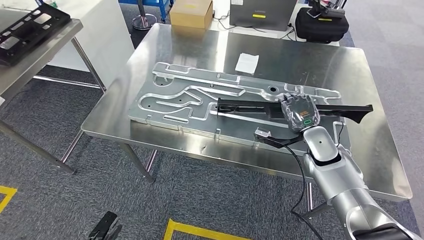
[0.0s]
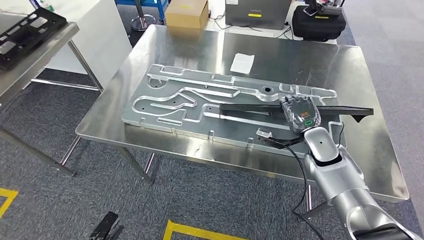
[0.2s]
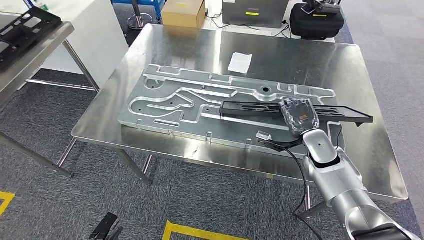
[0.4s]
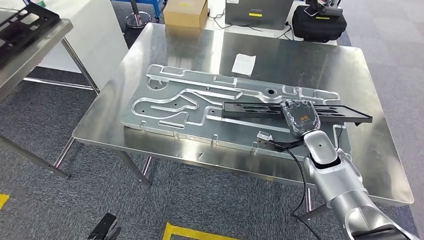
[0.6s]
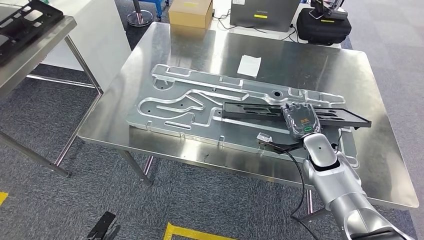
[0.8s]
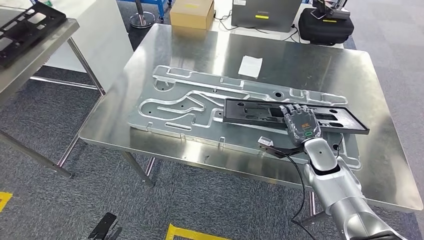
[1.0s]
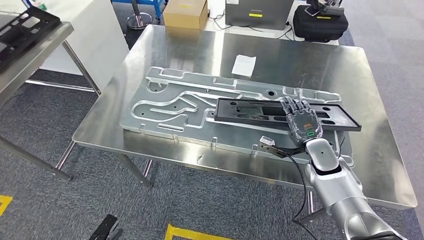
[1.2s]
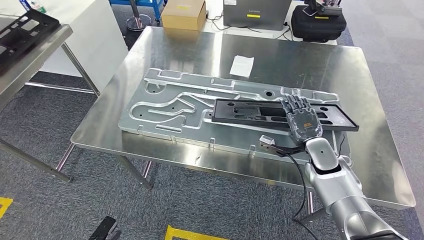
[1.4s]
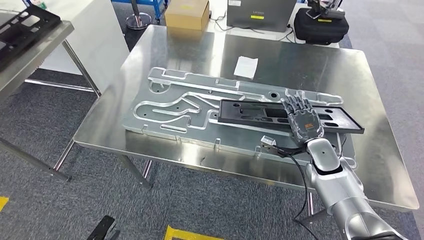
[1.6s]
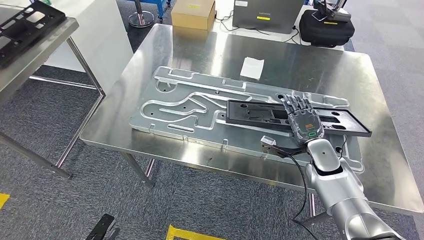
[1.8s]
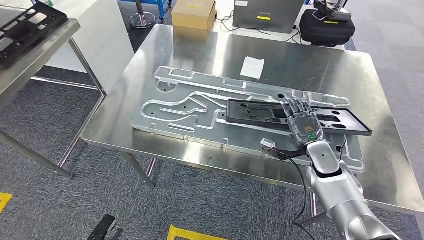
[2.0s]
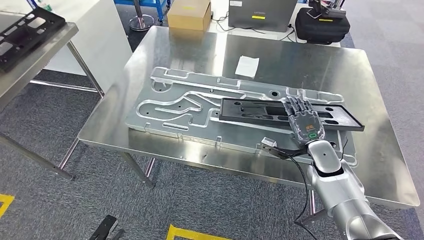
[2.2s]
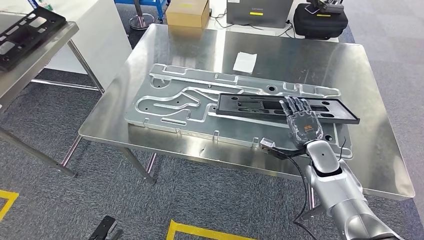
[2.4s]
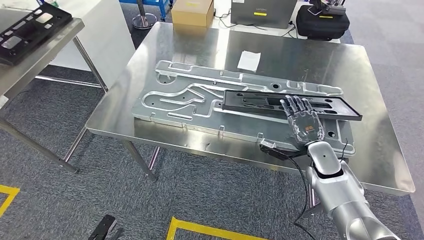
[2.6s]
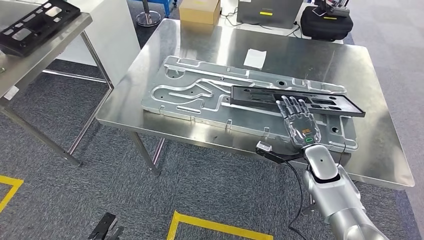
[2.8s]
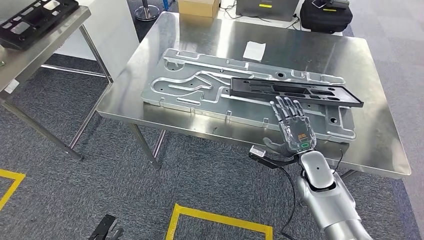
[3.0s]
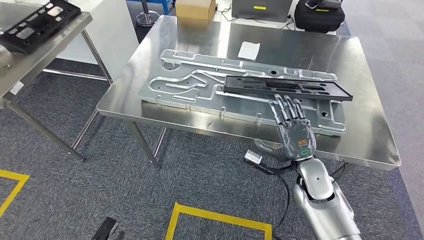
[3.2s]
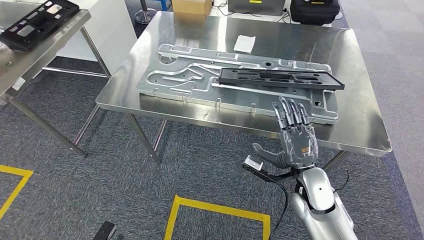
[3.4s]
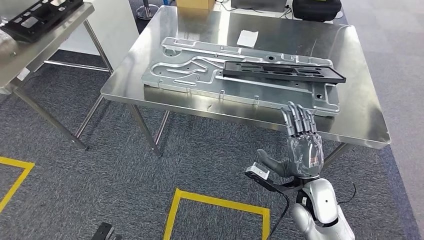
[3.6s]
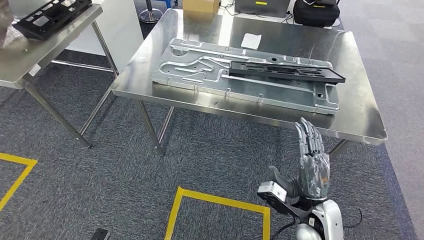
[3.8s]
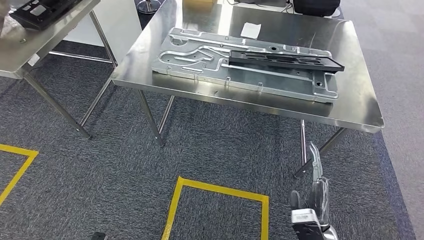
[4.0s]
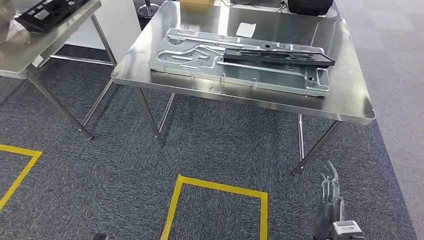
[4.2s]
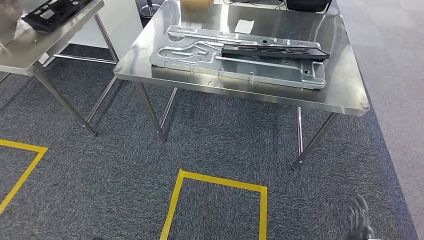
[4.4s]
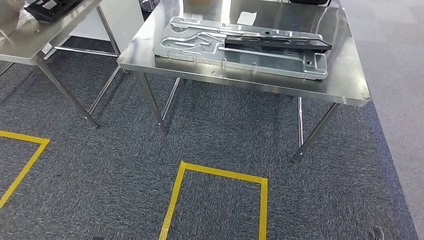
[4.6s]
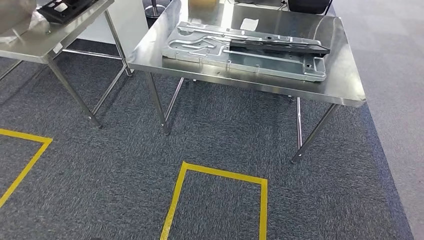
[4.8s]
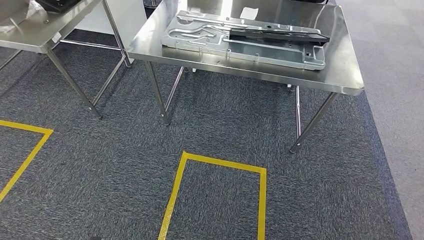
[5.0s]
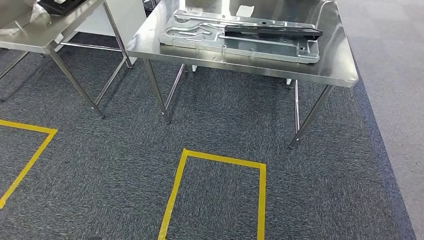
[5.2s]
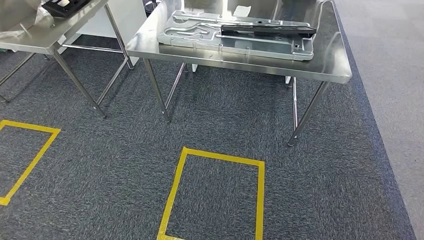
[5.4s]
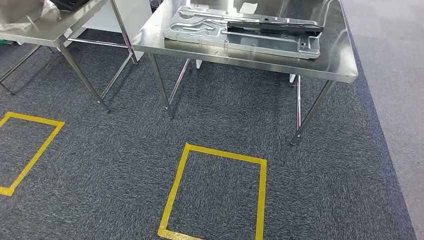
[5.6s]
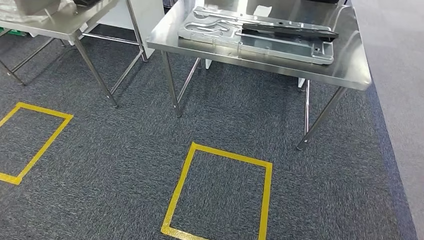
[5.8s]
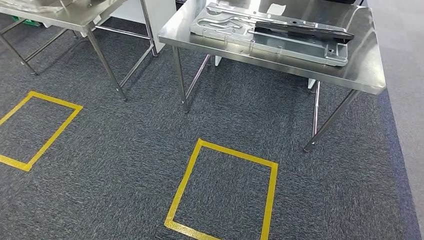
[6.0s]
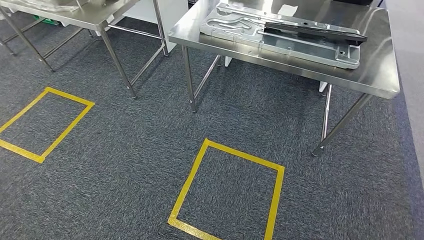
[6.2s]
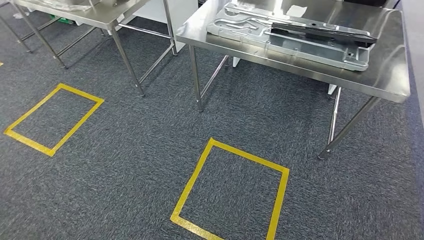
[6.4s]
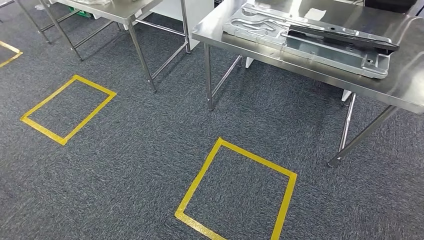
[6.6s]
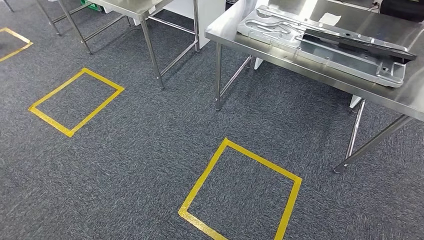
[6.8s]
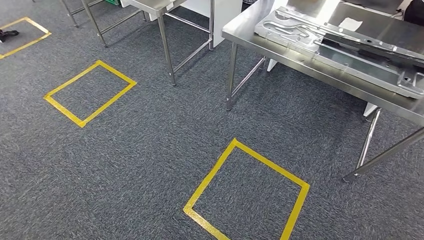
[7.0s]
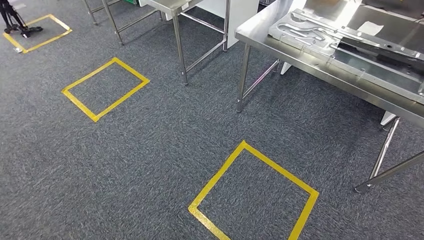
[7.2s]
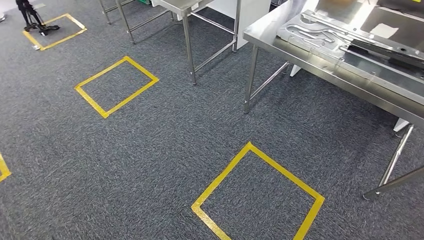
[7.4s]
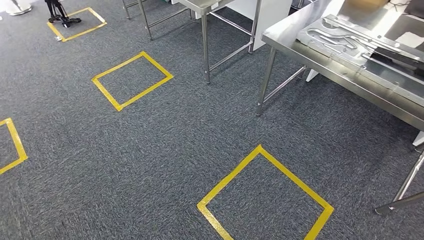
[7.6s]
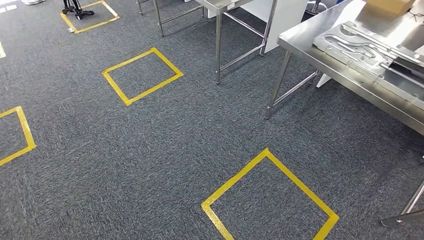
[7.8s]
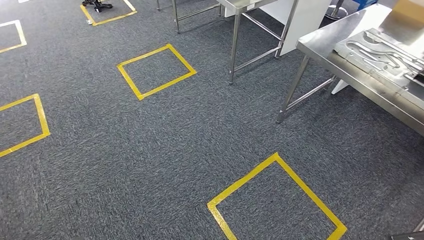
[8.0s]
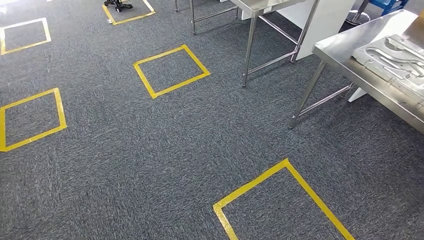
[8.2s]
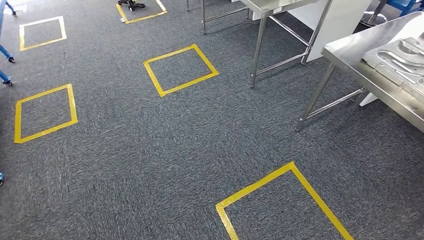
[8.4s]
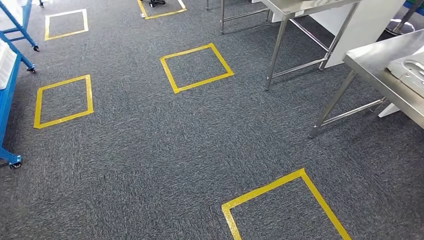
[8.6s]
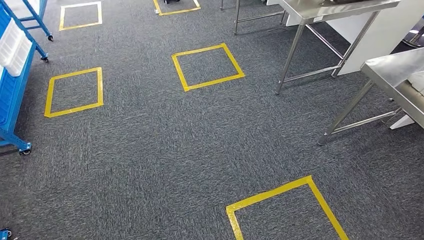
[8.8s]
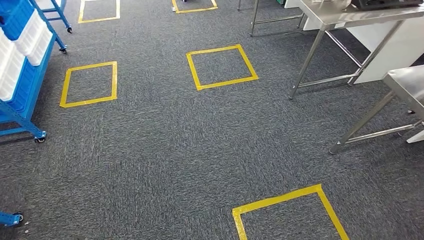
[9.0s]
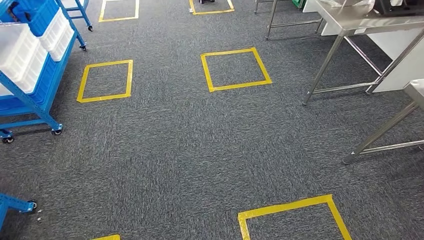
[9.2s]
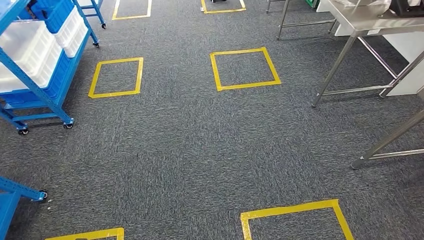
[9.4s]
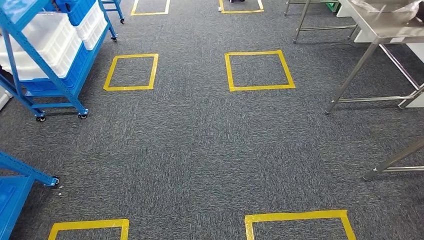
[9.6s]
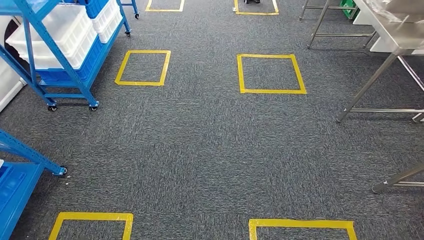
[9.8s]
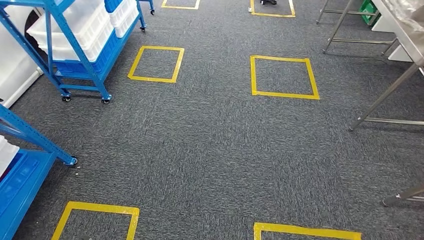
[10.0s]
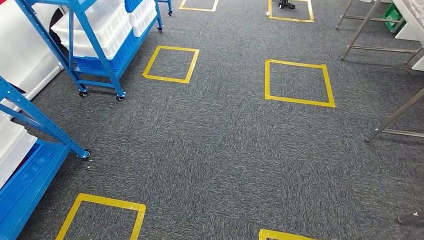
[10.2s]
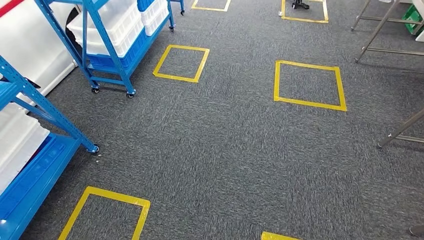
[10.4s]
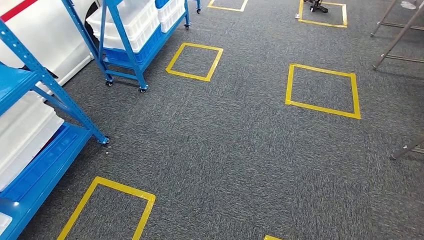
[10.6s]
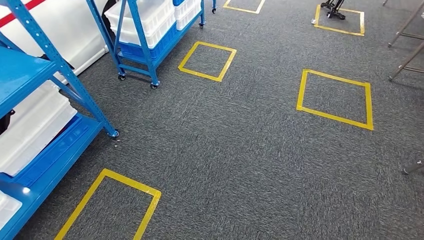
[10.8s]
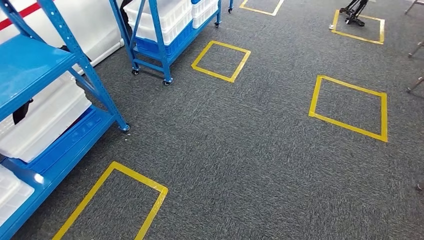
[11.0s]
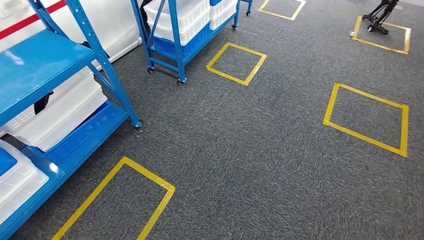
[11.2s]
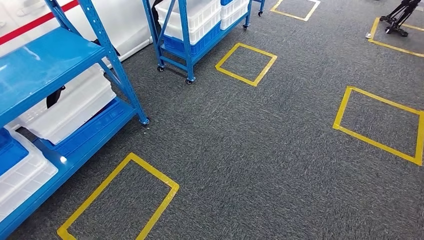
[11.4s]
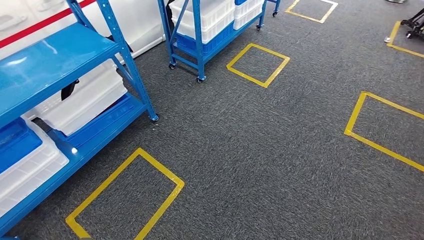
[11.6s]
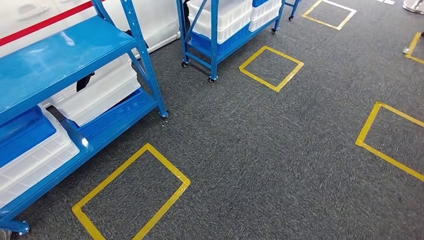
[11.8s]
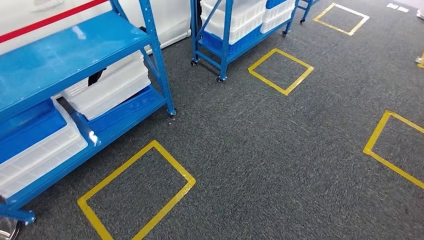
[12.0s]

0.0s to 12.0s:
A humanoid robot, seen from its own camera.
Step, 0.0s to 6.2s: Insert the large material into the corresponding slot on the workbench.

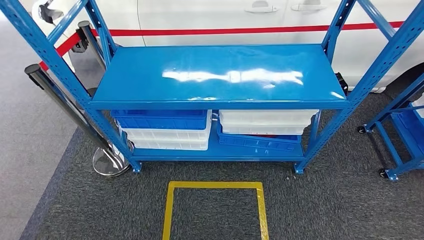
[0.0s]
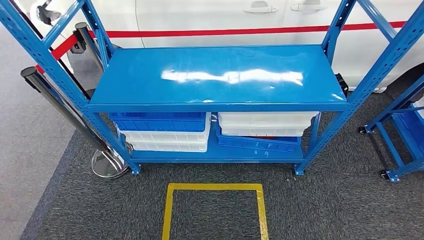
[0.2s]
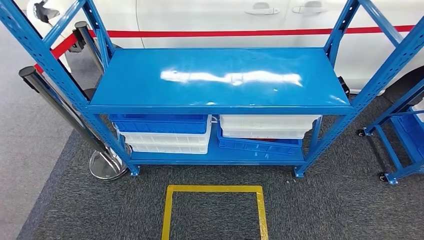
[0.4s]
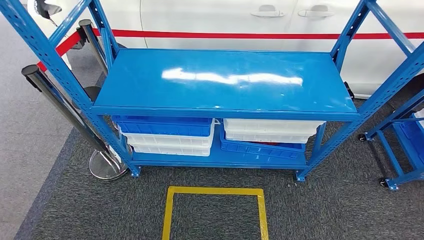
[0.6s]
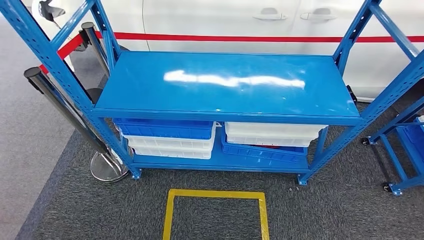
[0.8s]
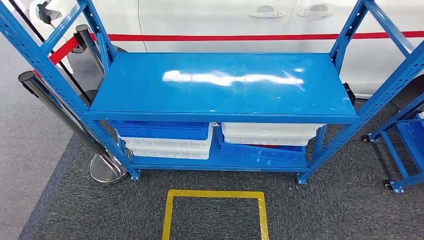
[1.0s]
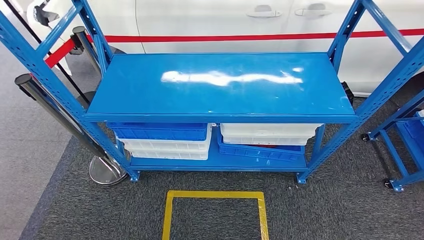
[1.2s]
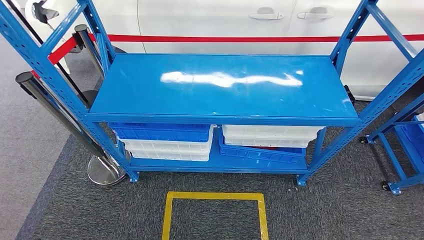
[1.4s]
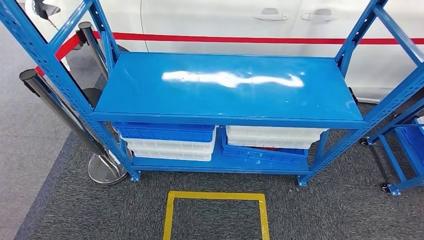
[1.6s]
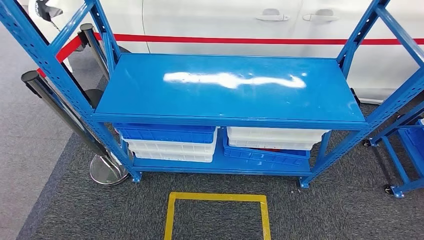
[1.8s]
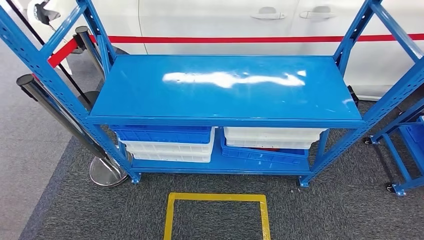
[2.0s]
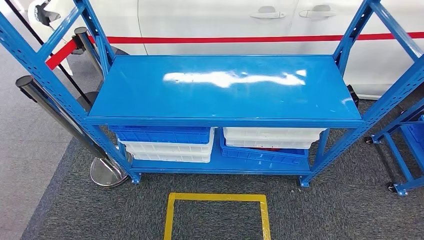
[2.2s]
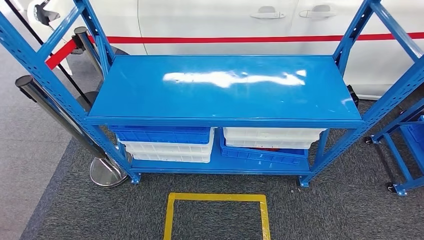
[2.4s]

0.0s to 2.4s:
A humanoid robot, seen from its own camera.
Step, 0.0s to 2.4s: Return to the initial position at the shelf.
1.2s to 2.4s: The hands stay close to where they were, moving slightly.
